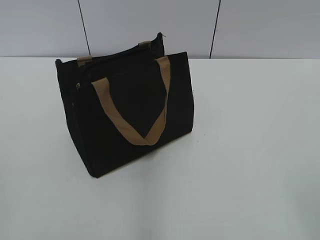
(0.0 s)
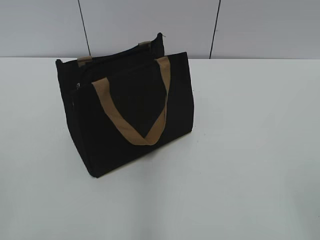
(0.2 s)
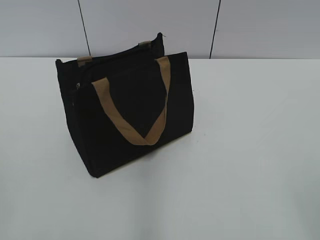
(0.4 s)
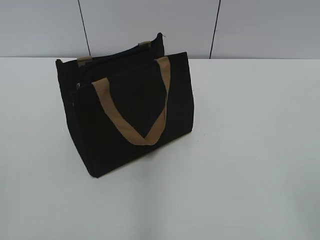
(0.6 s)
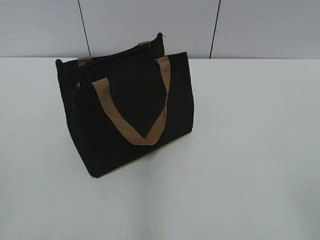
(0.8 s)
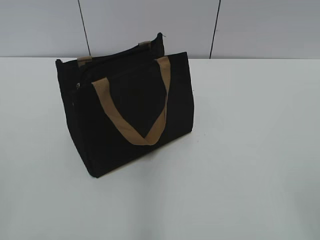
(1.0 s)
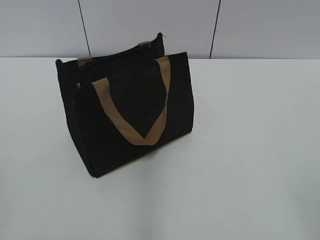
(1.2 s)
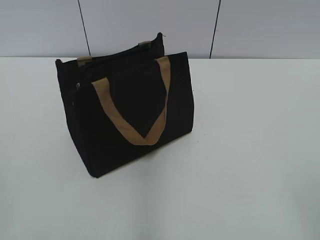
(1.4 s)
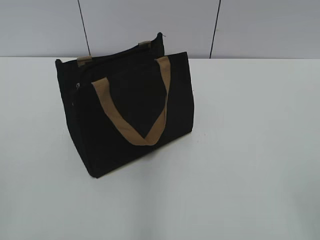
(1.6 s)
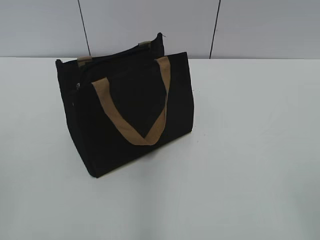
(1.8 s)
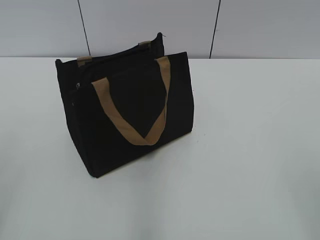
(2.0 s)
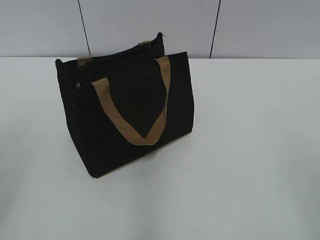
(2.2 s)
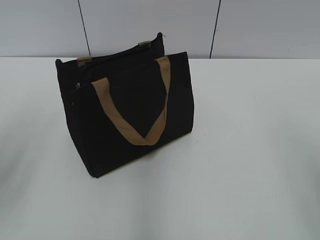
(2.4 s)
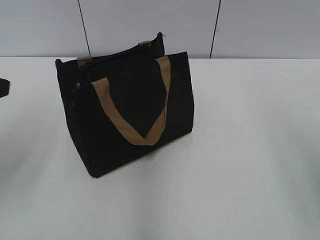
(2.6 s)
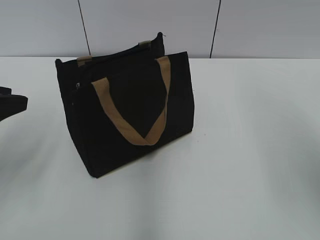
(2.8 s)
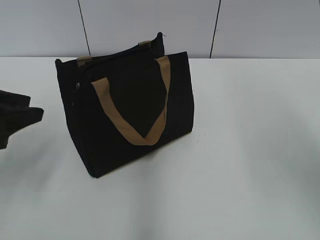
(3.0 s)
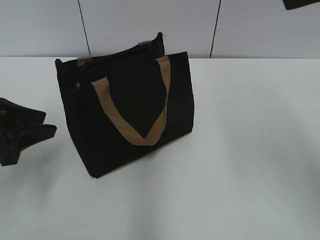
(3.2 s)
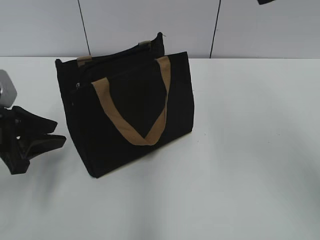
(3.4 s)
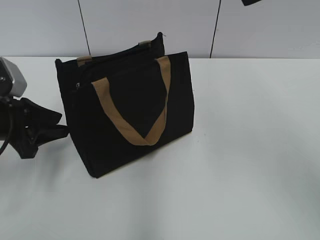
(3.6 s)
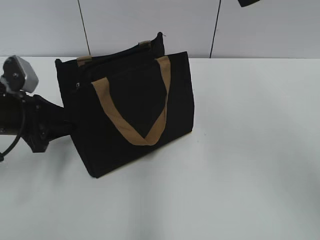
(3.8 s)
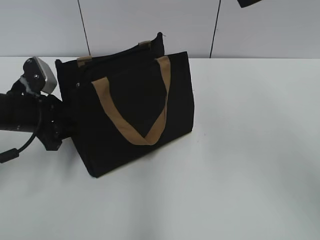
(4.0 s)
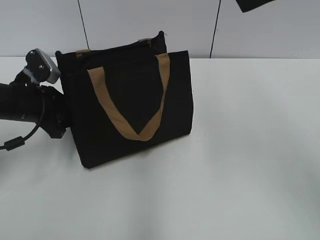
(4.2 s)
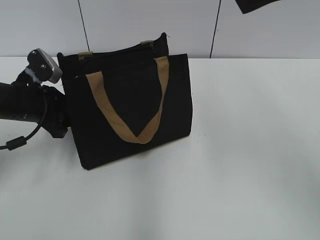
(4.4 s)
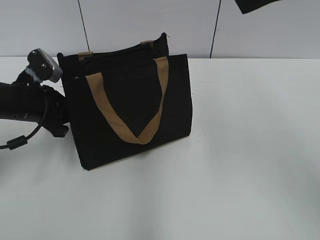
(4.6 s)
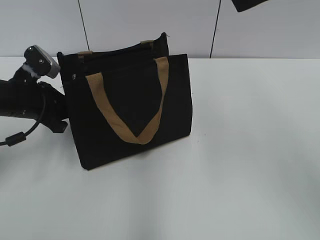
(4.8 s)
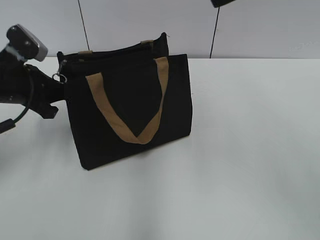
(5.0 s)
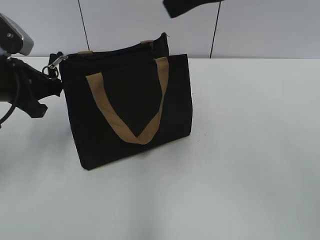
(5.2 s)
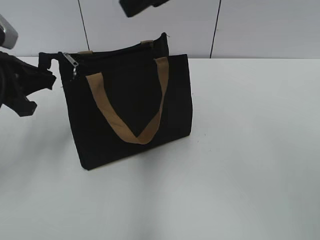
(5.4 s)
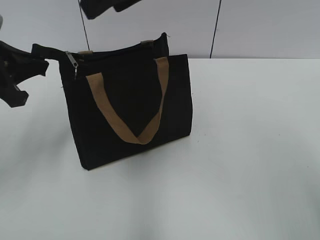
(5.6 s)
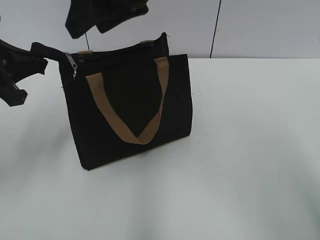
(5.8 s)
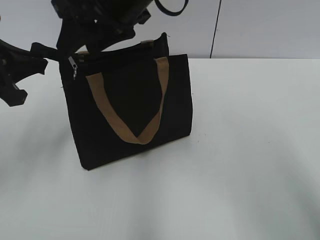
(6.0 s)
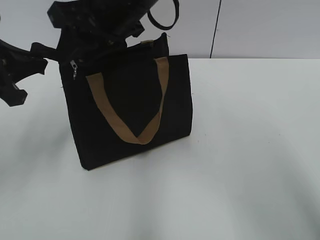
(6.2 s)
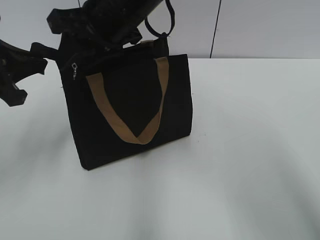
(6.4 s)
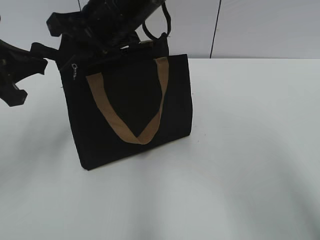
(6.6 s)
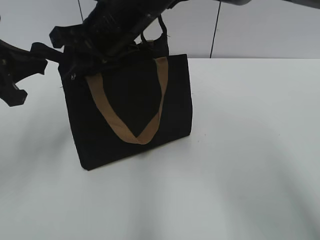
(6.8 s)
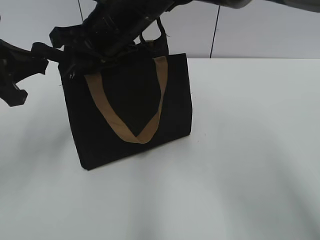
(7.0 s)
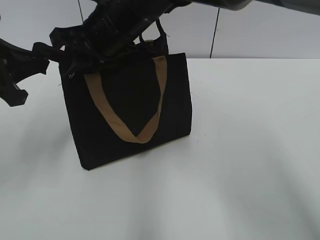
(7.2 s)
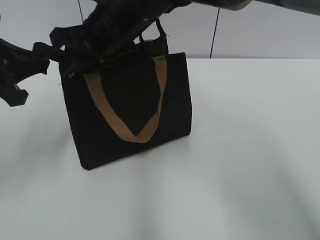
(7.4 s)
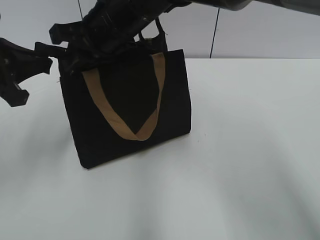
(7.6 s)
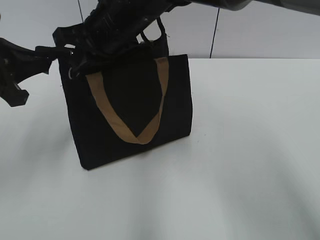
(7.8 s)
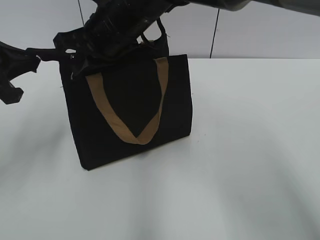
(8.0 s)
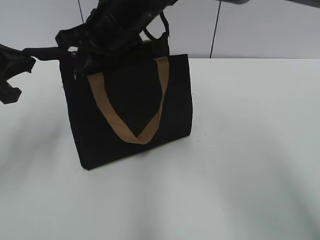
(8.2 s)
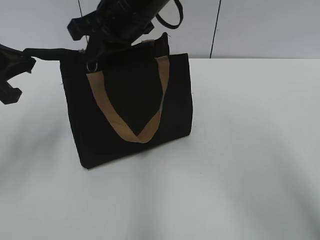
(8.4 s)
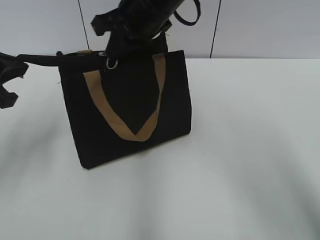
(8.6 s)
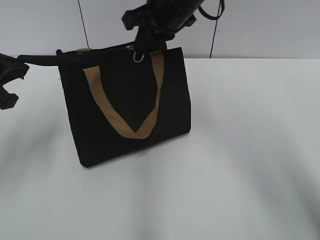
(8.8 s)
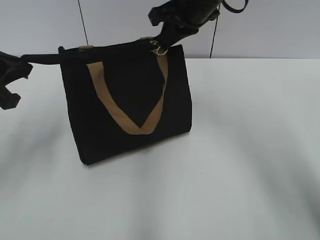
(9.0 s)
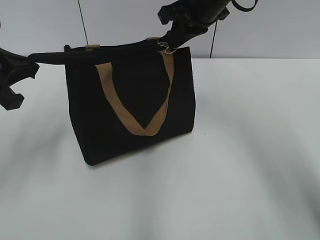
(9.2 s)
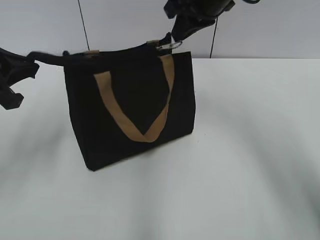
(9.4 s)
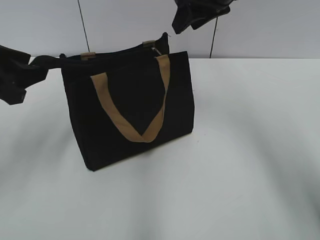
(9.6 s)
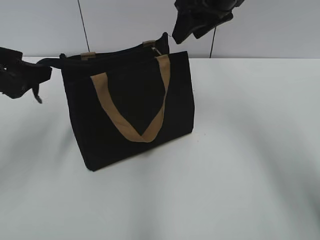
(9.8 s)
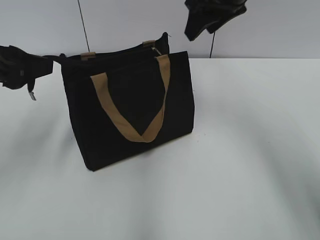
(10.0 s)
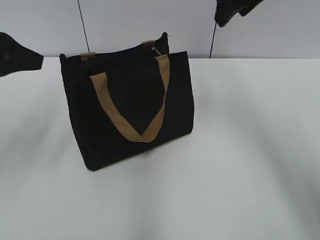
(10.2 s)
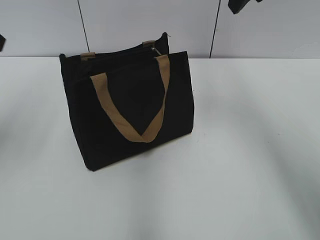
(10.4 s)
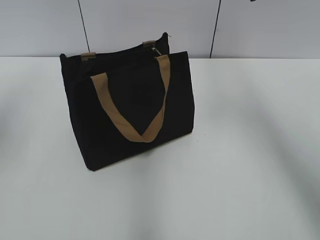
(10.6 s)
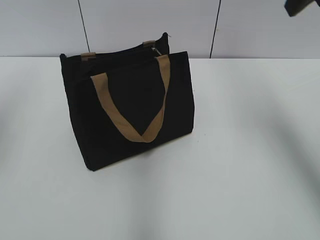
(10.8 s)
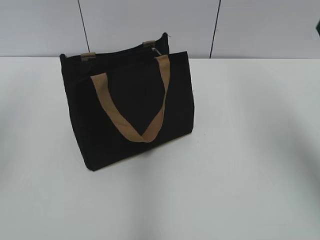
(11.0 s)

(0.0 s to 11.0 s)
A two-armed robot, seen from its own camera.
Step, 0.0 s - 9.4 s: Zip up the bag with your right hand.
Step, 9.6 s - 10.0 s: Grab the zipper with your left hand.
1.6 s - 3.2 s: The right gripper moves forward and upward, some 30 cm; the left gripper heads forward and downward, covering approximately 25 cm.
3.2 s - 4.8 s: The left gripper heads forward, covering some 10 cm, and closes.
4.8 s - 6.2 s: The right gripper goes approximately 20 cm to the left and downward, while the left gripper is displaced upward and backward by about 10 cm.
6.2 s - 7.8 s: The right gripper ends up about 5 cm from where it was, and closes its fingers.
7.8 s - 9.4 s: The right gripper shifts approximately 15 cm to the right.
9.4 s - 11.0 s: The right gripper heads backward, to the right and upward, covering roughly 20 cm, and opens its fingers. Meanwhile the left gripper shifts some 10 cm upward and to the left, and opens.

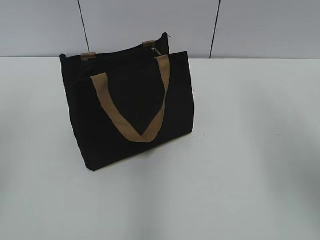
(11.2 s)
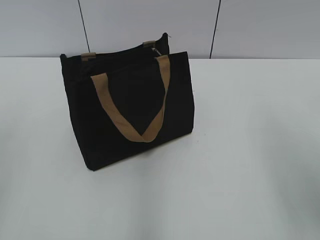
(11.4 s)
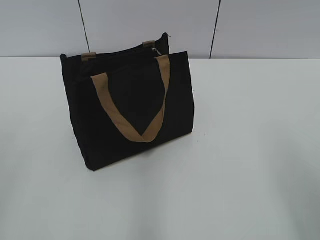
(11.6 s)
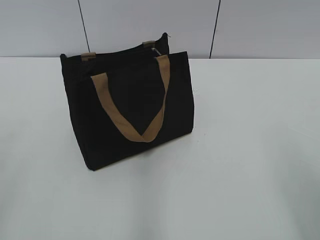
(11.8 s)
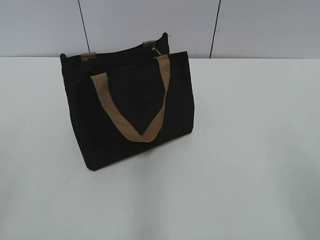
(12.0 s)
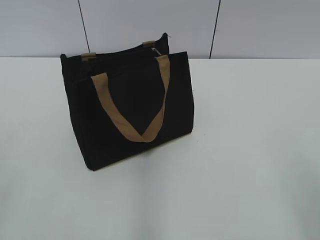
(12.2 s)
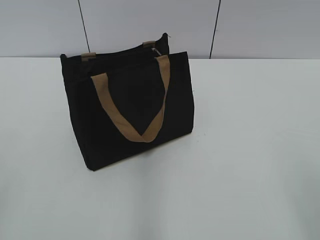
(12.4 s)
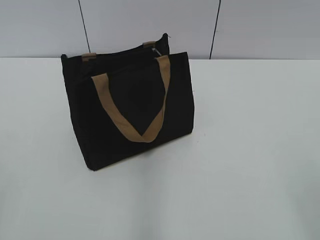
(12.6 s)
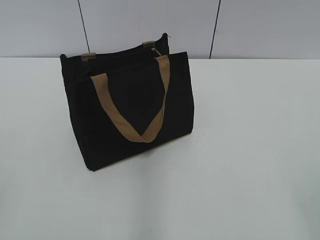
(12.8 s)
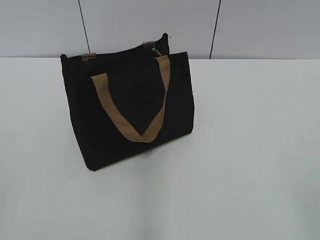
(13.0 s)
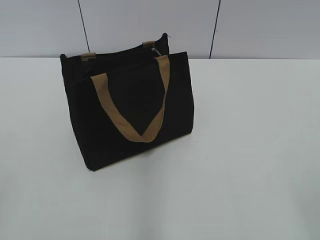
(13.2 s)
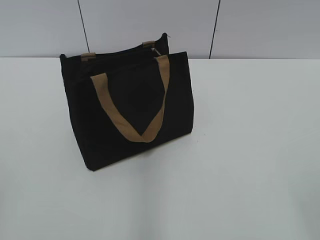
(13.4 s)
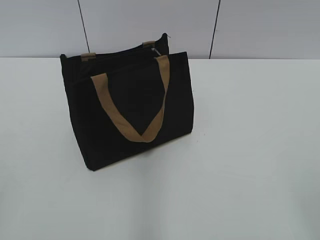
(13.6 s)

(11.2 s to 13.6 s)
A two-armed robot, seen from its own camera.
11.2 s - 12.4 s: The right gripper is displaced backward and downward by some 20 cm.

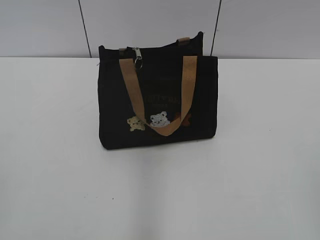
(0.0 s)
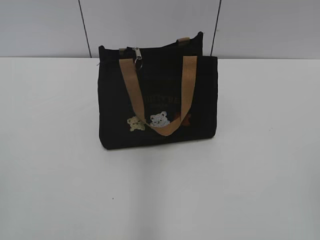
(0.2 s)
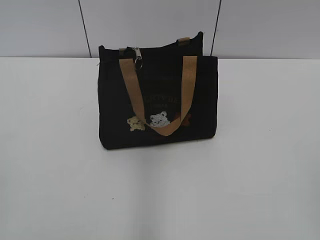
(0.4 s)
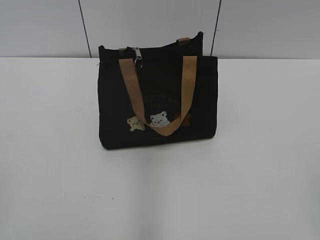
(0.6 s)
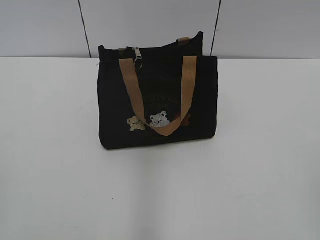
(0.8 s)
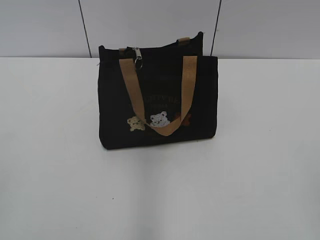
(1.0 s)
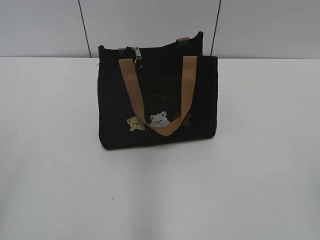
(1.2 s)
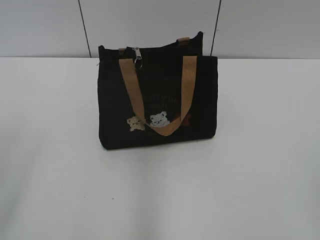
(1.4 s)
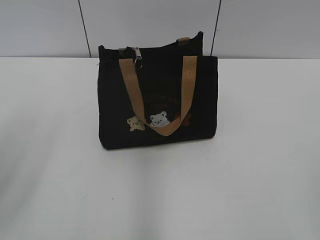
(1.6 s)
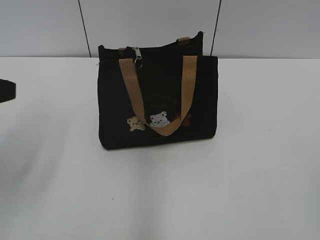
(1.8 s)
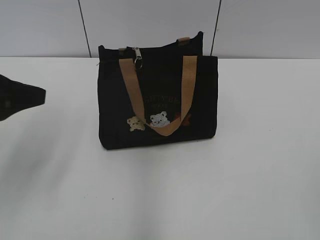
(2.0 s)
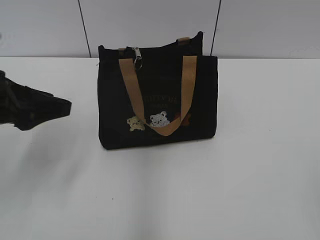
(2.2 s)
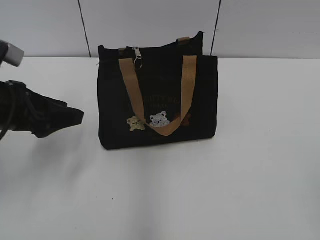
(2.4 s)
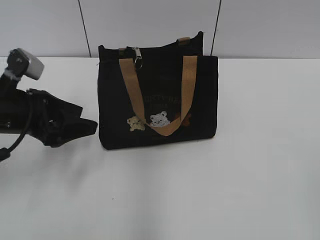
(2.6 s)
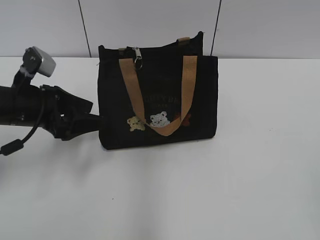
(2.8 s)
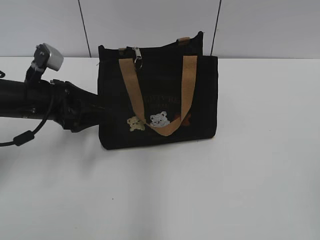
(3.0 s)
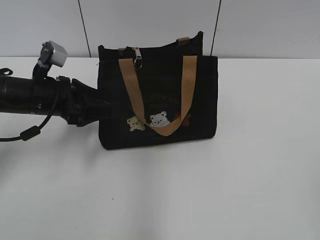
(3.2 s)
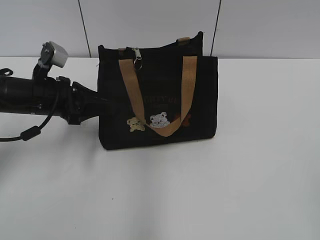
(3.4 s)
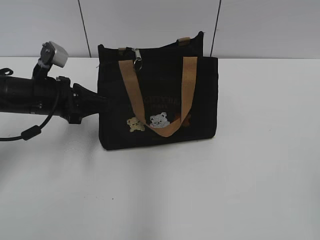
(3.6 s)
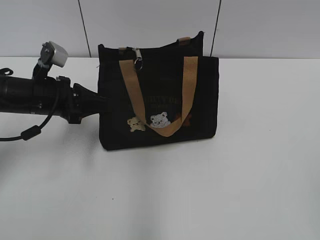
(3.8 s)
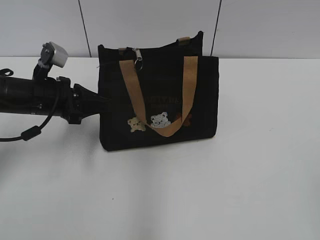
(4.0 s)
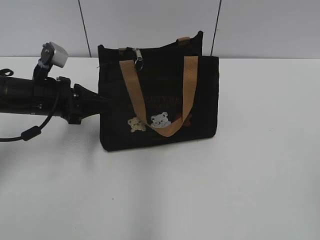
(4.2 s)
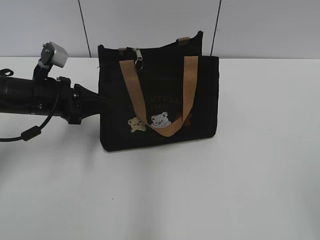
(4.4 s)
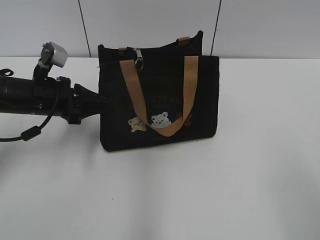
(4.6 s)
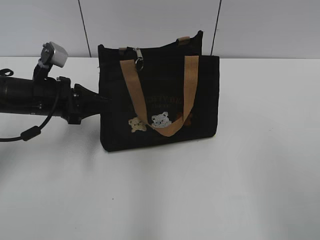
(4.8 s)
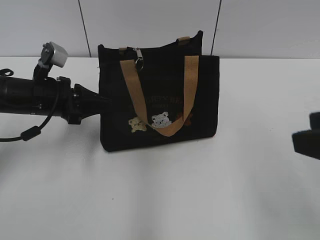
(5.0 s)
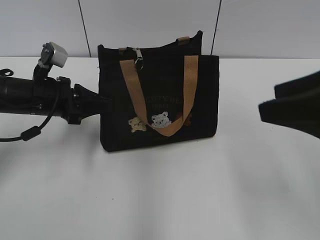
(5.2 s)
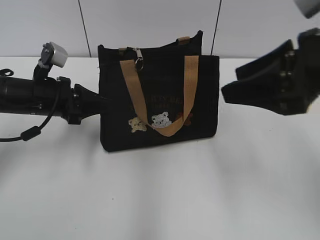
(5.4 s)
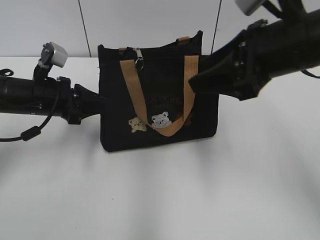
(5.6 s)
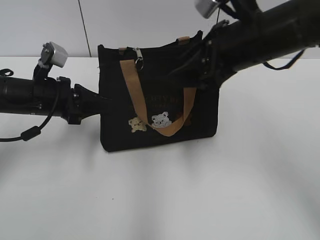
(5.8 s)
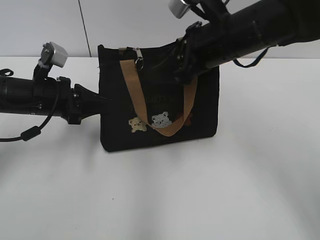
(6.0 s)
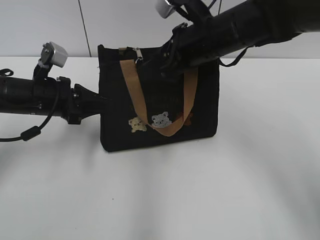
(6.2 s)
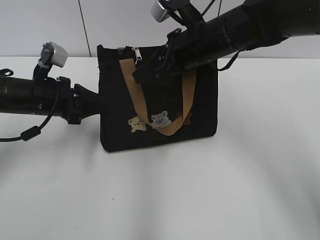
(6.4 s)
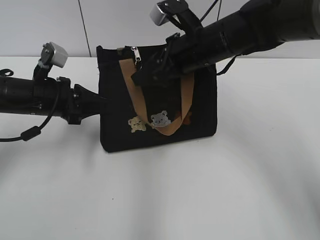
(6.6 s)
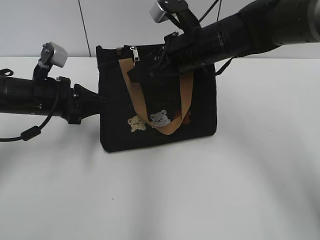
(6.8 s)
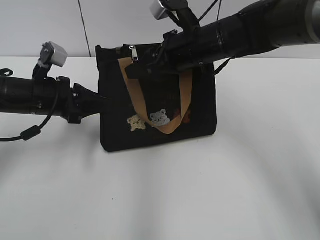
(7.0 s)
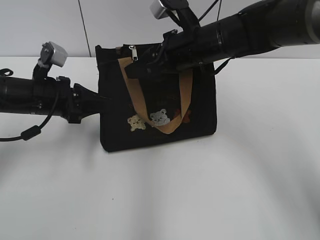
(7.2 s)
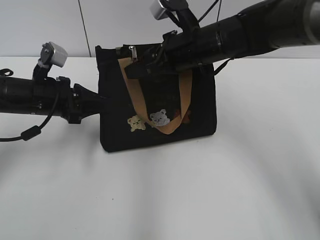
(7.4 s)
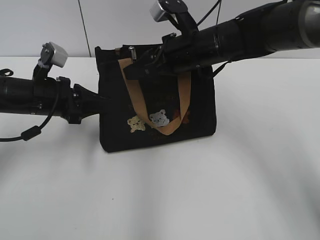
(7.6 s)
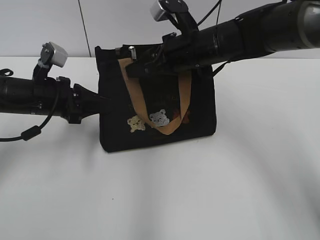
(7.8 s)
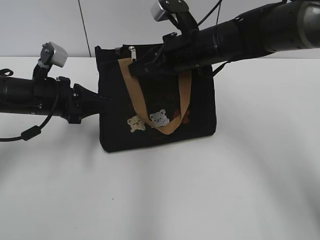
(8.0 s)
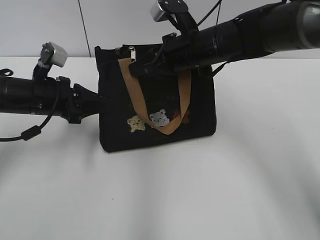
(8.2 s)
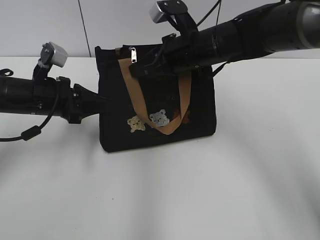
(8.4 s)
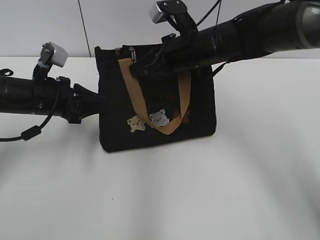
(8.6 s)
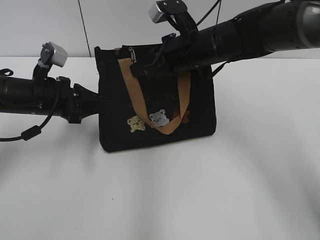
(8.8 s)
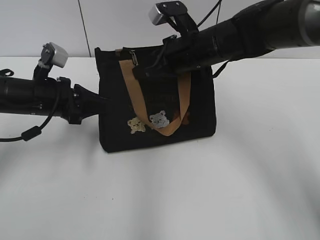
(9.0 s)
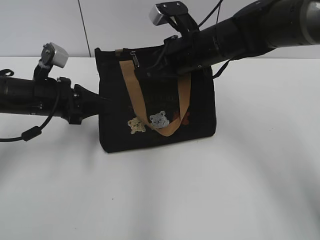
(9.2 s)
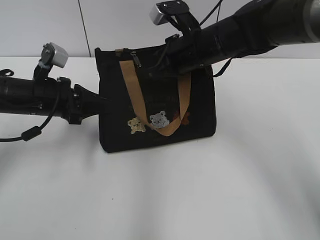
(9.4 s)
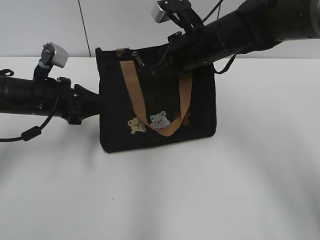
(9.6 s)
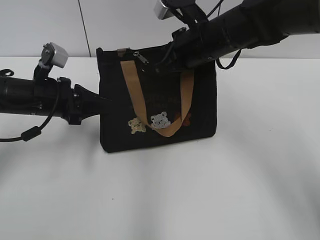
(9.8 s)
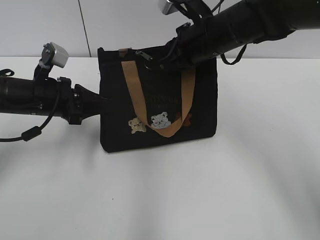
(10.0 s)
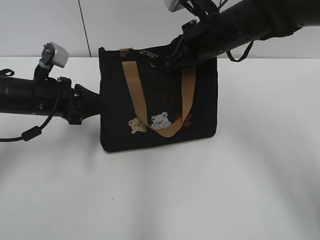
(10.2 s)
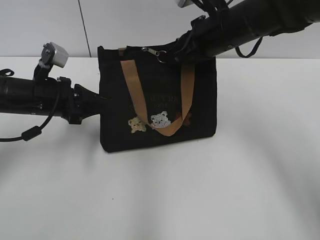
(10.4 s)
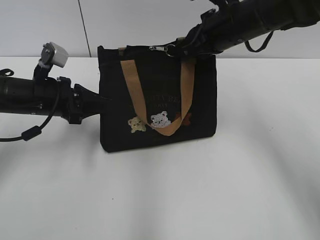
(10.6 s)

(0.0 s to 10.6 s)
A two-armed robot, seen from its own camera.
1.6 s - 3.0 s: The left gripper goes roughly 25 cm forward and downward.
3.0 s - 4.6 s: The left gripper closes up. Meanwhile the right gripper moves approximately 5 cm.
4.6 s - 6.0 s: The right gripper moves forward and to the left, roughly 35 cm.
6.0 s - 7.6 s: The right gripper heads forward and downward, covering some 5 cm.
7.6 s - 9.0 s: The right gripper closes its fingers.
9.0 s - 10.6 s: The right gripper shifts about 5 cm to the right.
